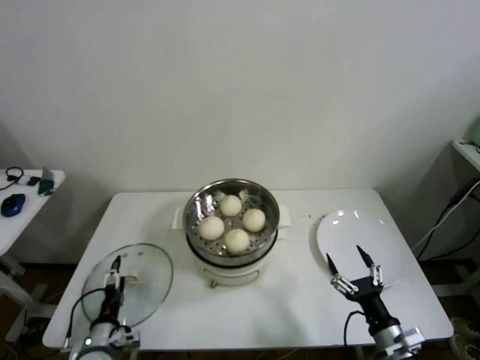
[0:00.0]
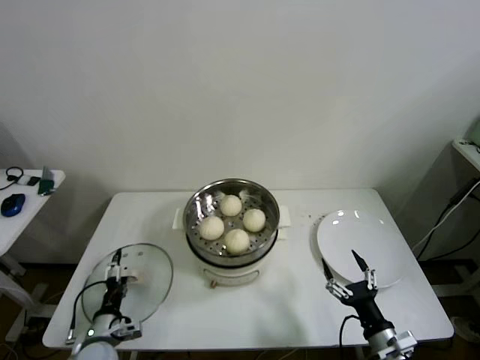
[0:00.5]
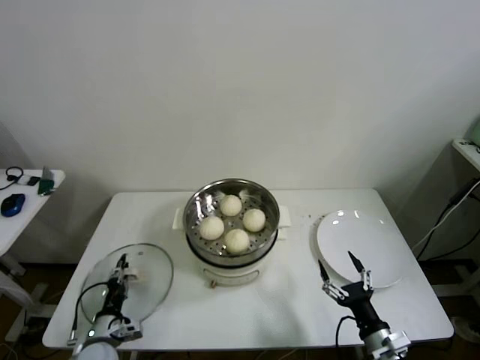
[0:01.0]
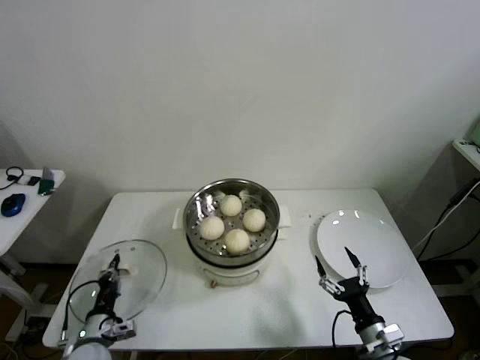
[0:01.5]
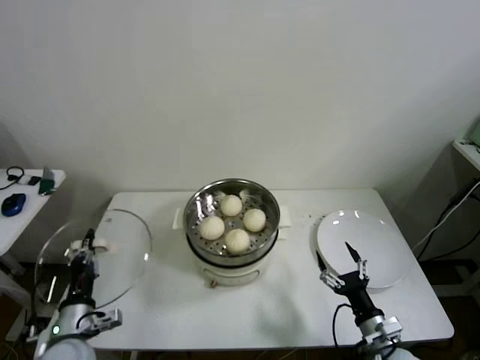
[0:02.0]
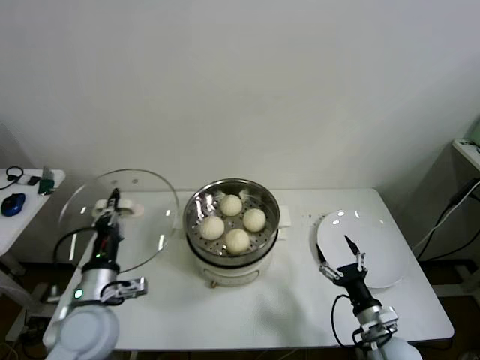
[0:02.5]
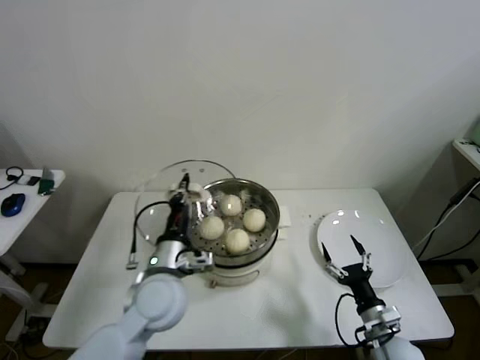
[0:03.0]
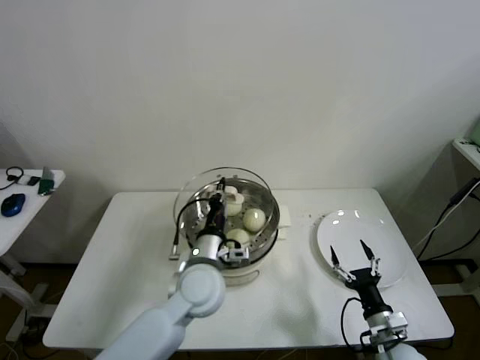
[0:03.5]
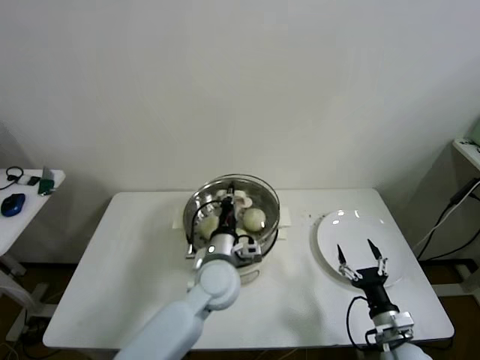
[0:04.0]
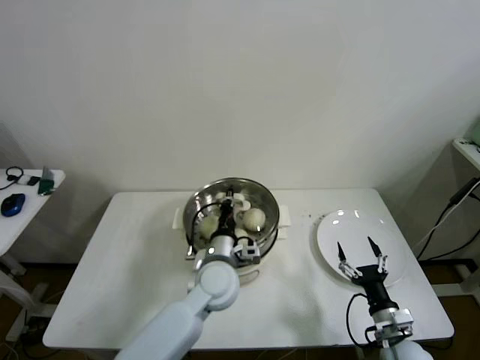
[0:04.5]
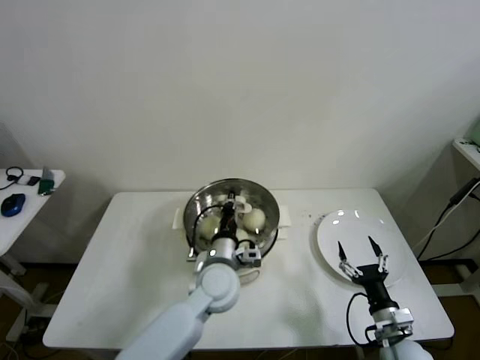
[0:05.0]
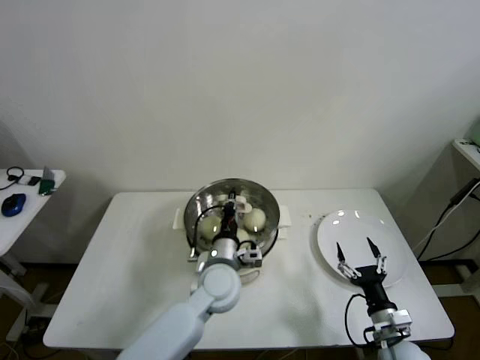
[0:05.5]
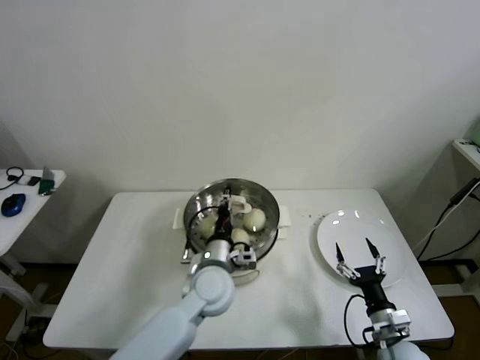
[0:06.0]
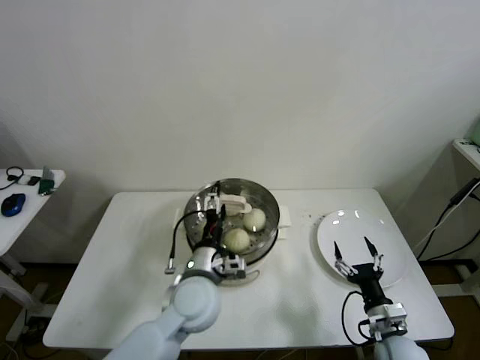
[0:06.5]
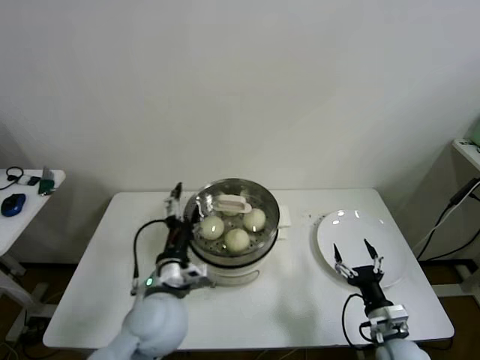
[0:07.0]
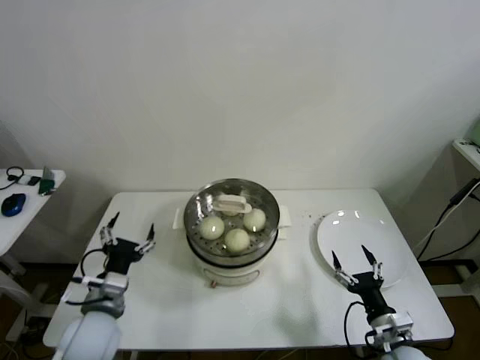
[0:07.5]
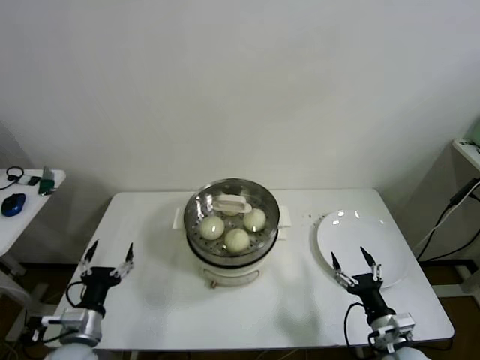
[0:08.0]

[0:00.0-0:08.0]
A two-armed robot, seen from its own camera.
Step, 0:01.5 to 0:05.5: Place the pot lid on the steamer with left gripper.
0:00.0 to 0:02.0: The left gripper shifts about 10 cm upward, and closes its fingers.
0:02.0 to 0:04.0: The left gripper is displaced to the right and forward by about 30 cm.
0:04.0 to 0:06.0: The left gripper opens.
0:06.0 to 0:08.0: The left gripper shifts roughly 30 cm to the left and backward, and opens.

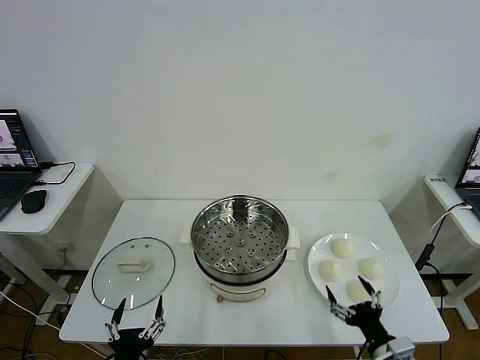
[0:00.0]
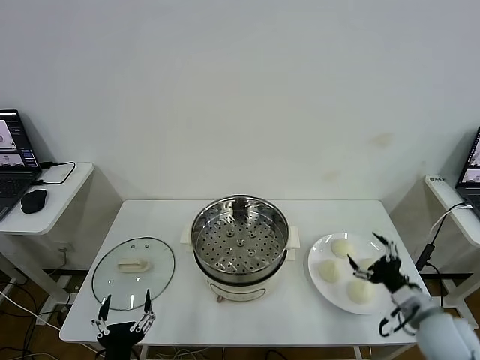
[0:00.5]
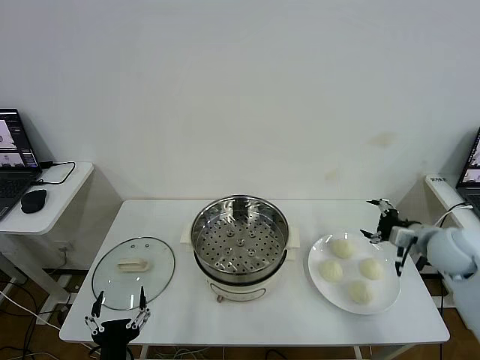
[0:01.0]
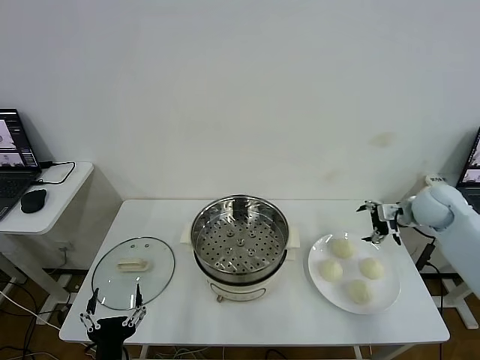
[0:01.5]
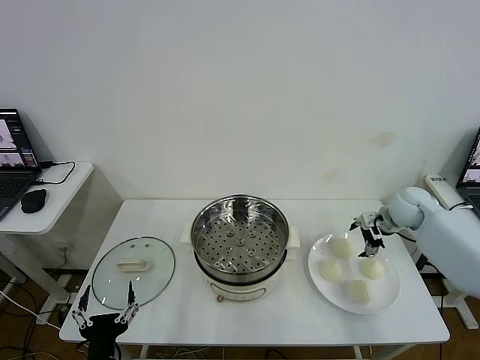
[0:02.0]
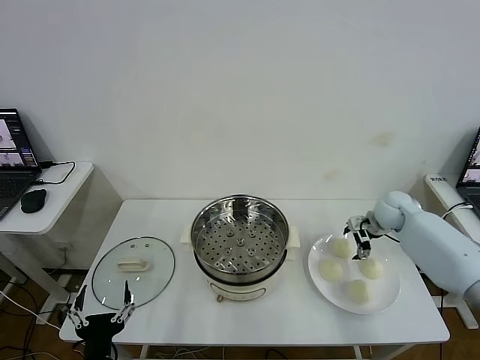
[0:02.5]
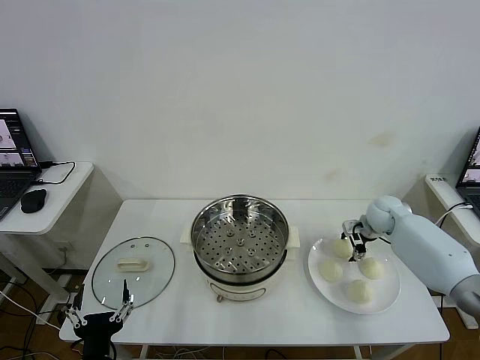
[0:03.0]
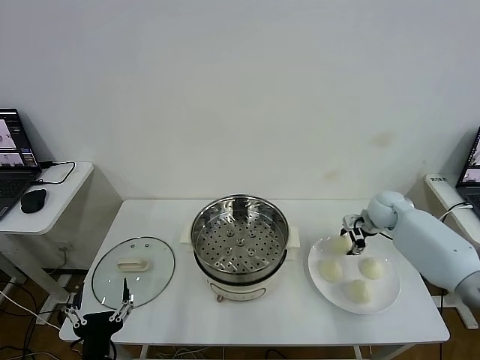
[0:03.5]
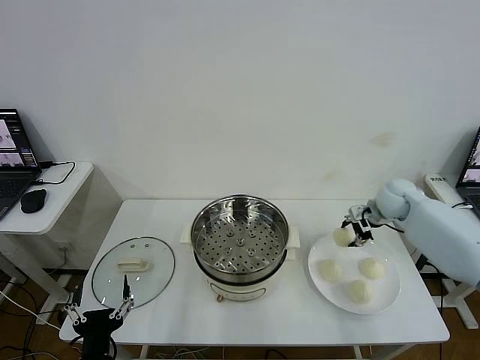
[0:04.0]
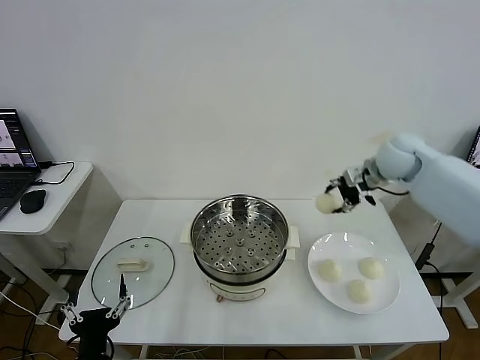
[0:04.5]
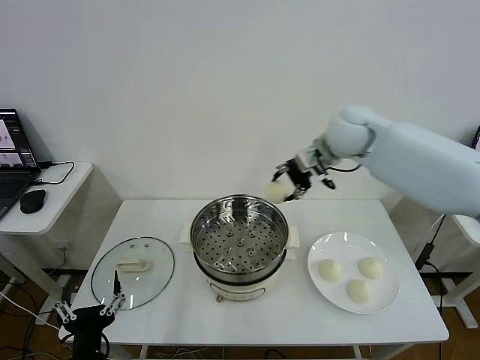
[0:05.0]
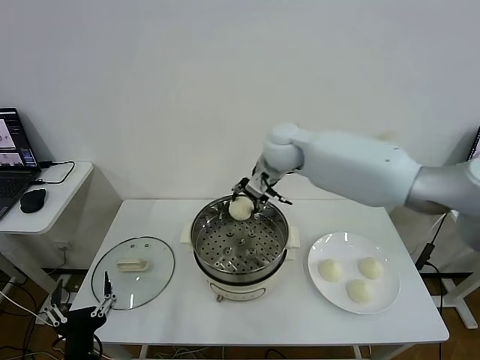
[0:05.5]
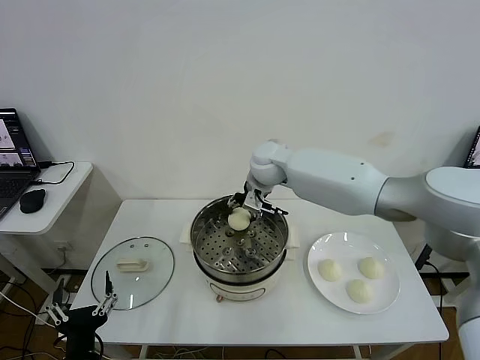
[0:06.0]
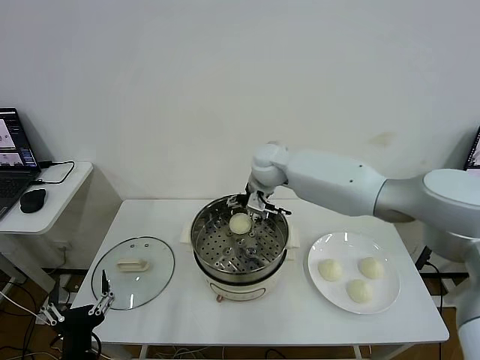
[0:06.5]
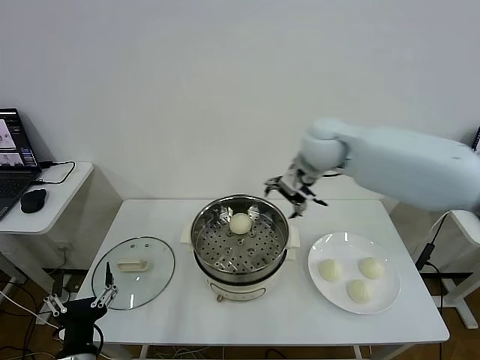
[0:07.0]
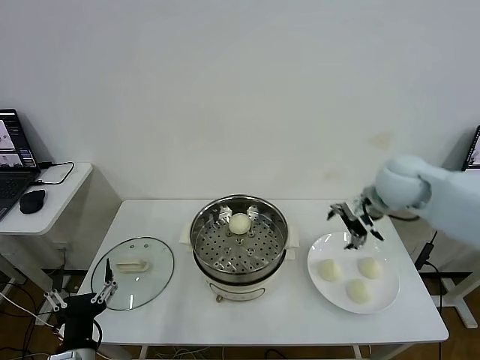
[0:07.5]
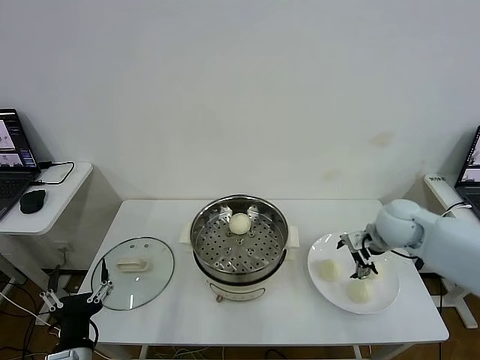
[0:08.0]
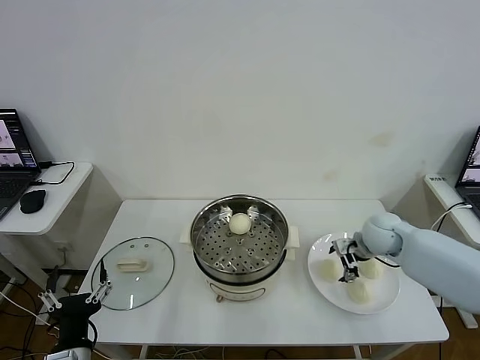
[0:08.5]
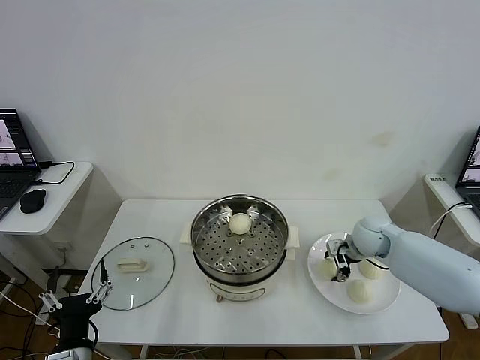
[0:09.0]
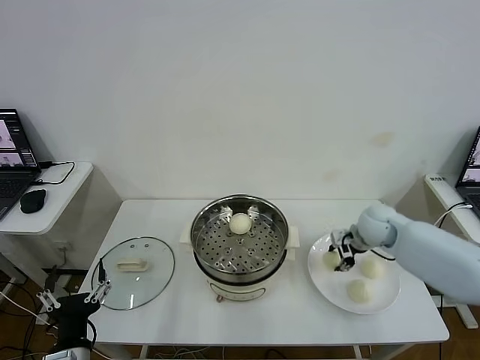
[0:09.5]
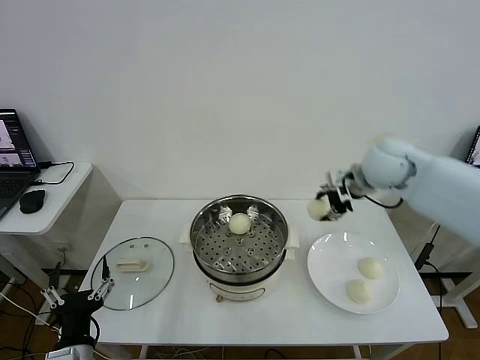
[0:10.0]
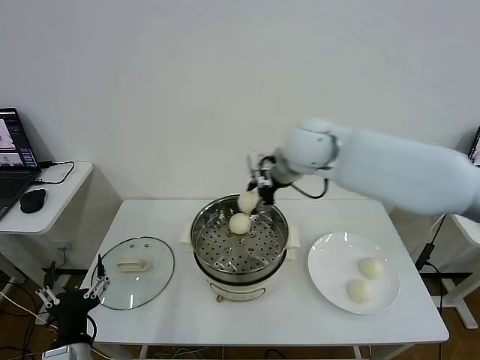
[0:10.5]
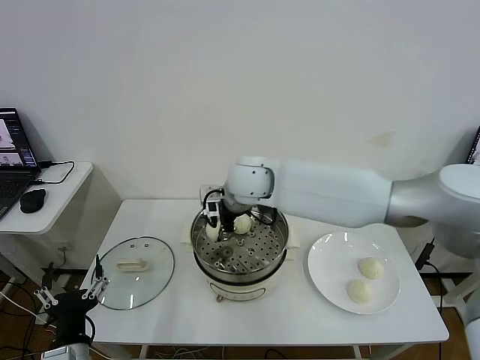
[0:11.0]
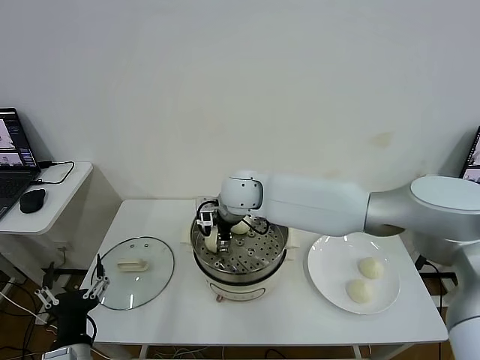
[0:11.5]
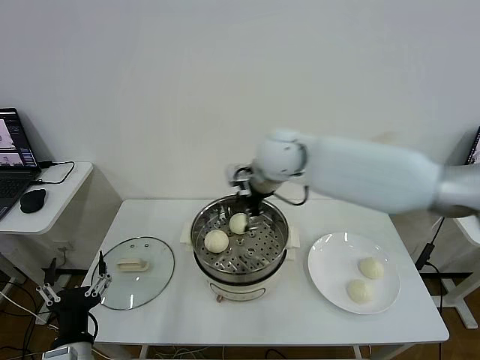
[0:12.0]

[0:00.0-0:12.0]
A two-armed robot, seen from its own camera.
Step, 0:00.0 to 0:03.0: Grasp the baozi in the plate with right gripper.
Step, 0:03.5 to 0:06.0: Place the baozi on the steamer with right gripper.
Step, 0:07.0 to 0:09.0: Grasp the baozi in the plate with right gripper.
Step, 0:09.5 to 0:11.5: Place the baozi on the steamer with right gripper.
0:02.0 to 0:04.0: The right gripper closes.
0:04.0 to 0:06.0: The right gripper heads to the left, covering roughly 30 cm.
0:06.0 to 0:08.0: The right gripper travels to the right and backward by some 30 cm, and opens up.
0:08.0 to 0:10.0: The right gripper is displaced upward, to the left and forward by about 15 cm, and closes up.
0:10.0 to 0:12.0: The right gripper moves to the left, roughly 20 cm, and opens its fingers.

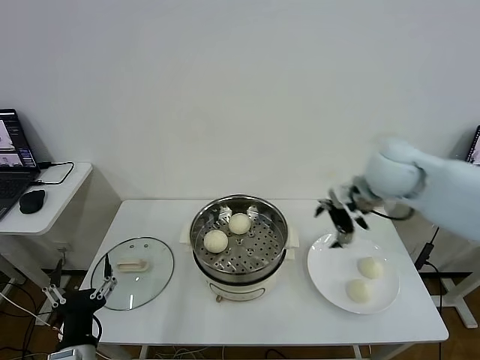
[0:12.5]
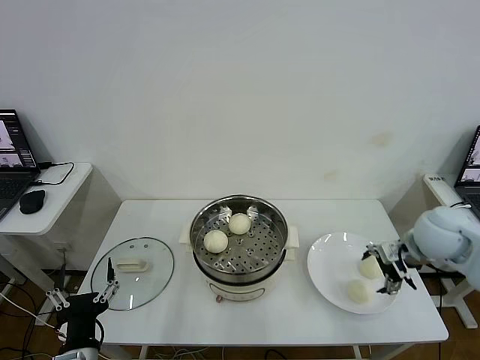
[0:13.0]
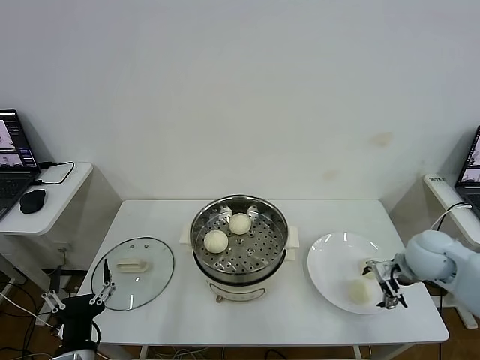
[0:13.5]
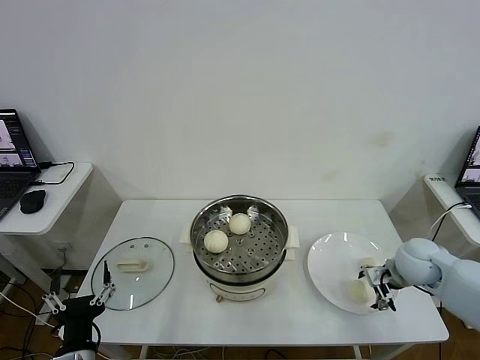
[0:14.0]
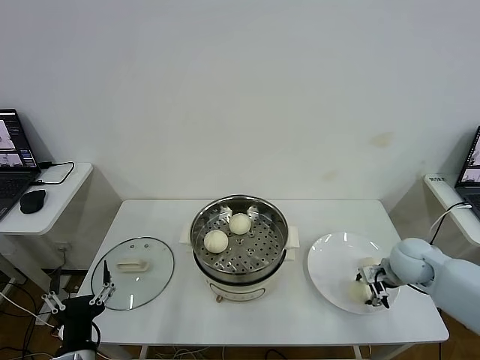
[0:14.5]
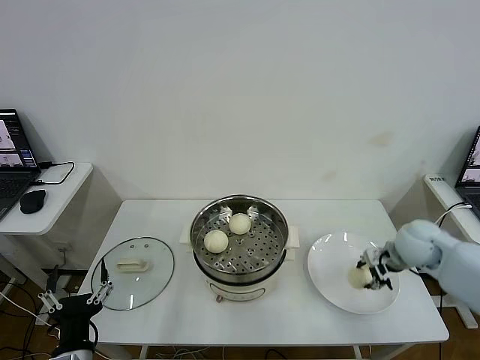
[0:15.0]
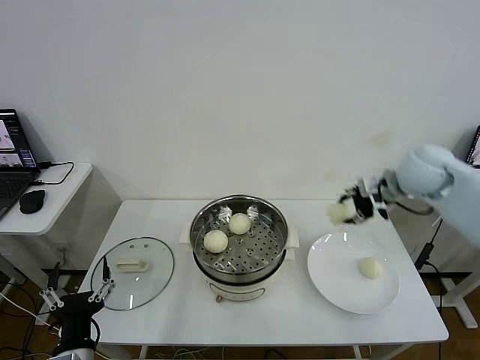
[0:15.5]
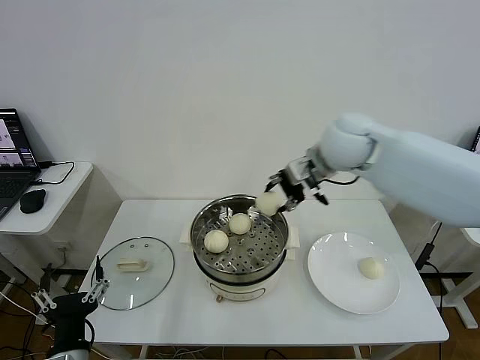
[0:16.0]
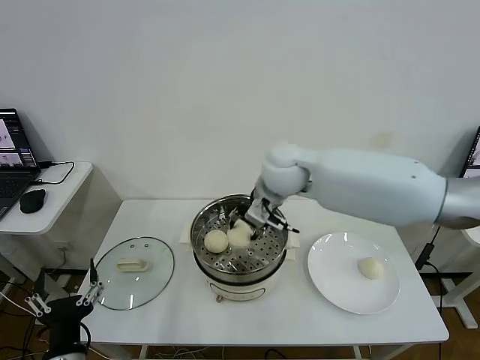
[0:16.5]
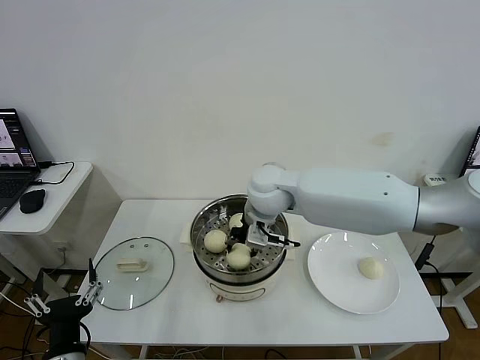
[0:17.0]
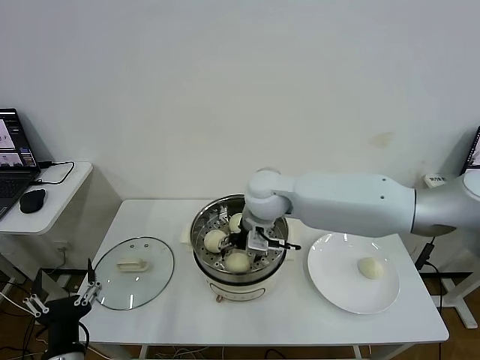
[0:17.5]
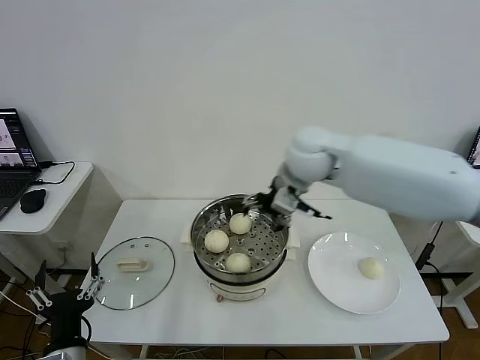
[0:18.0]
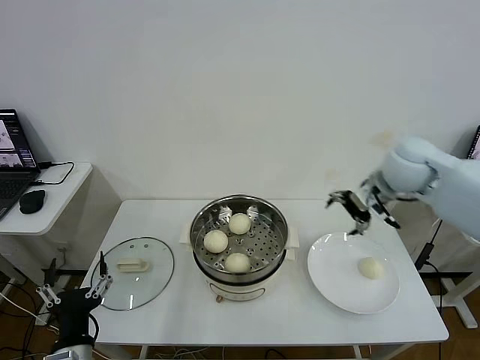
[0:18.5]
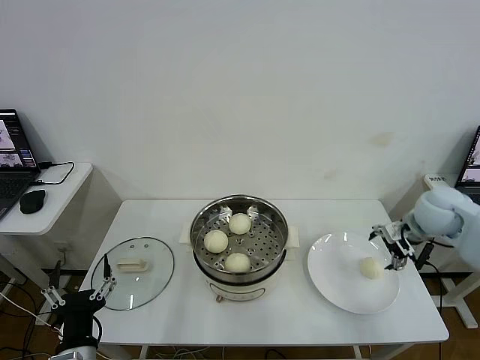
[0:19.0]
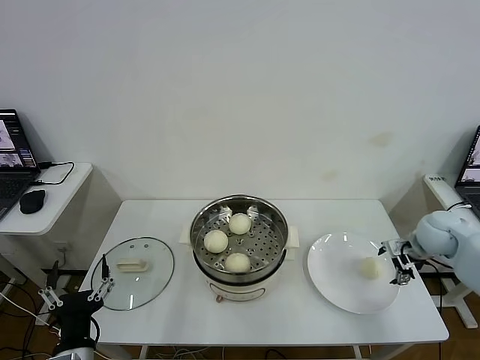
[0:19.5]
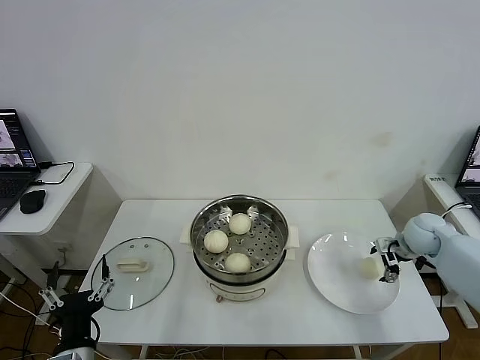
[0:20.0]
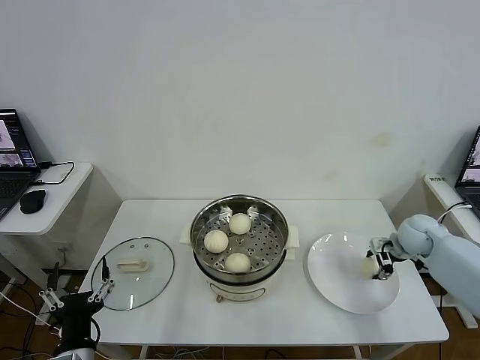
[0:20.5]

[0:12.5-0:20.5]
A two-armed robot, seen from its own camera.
Step, 0:12.5 to 0:14.5: Grasp the baozi in the plate with right gripper.
Step, 0:15.0 to 0:17.5: Place the baozi on the steamer with right gripper.
Step, 0:18.0 to 0:20.5: Grasp the baozi in the plate with right gripper.
0:12.5 to 0:14.5: The right gripper heads downward and to the right, covering about 25 cm, and closes its fingers.
0:14.5 to 0:16.5: The right gripper is displaced to the left and upward by roughly 35 cm.
0:16.5 to 0:18.5: The right gripper travels to the right by roughly 25 cm, and opens up.
0:18.5 to 0:20.5: The right gripper travels downward and to the right by roughly 25 cm, and closes up.
